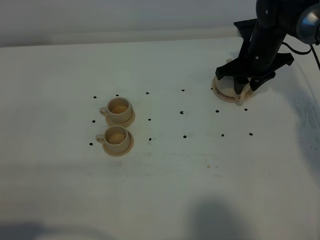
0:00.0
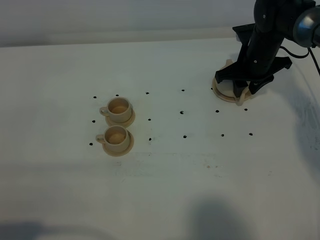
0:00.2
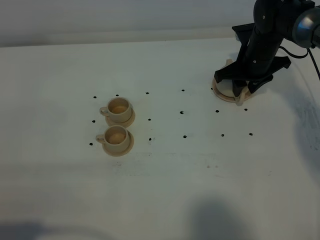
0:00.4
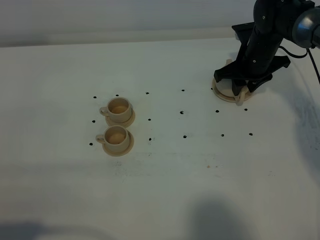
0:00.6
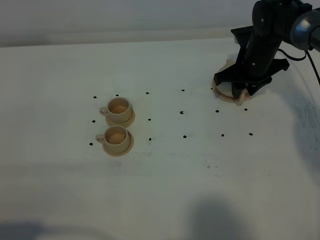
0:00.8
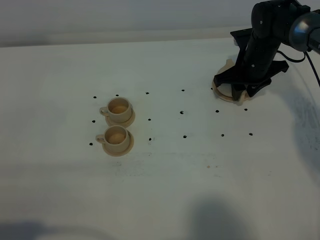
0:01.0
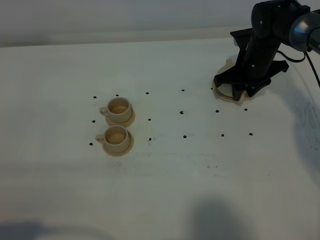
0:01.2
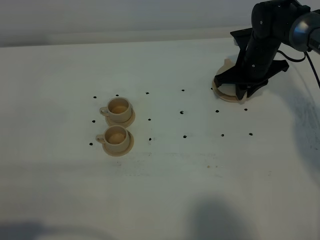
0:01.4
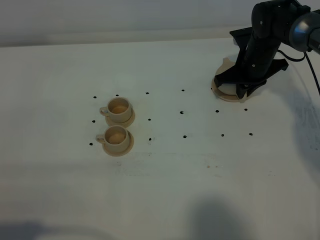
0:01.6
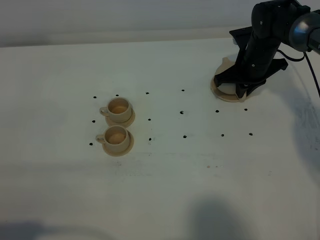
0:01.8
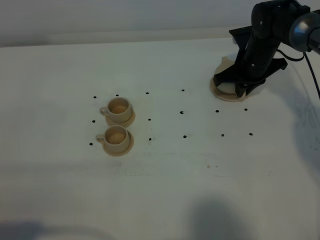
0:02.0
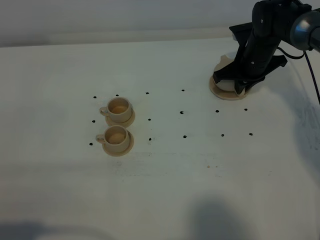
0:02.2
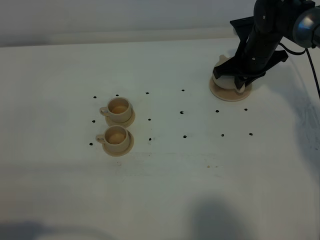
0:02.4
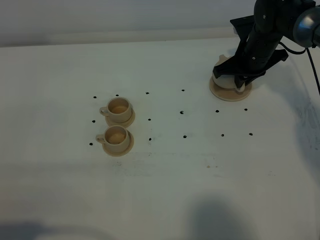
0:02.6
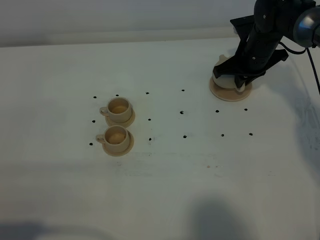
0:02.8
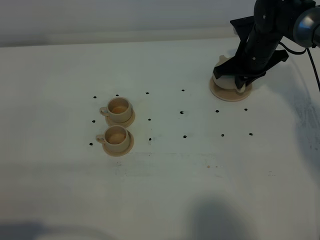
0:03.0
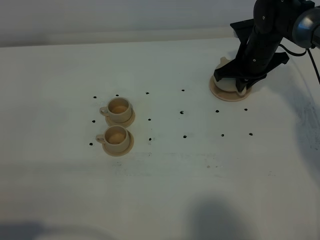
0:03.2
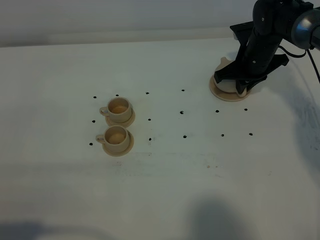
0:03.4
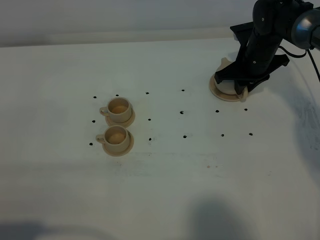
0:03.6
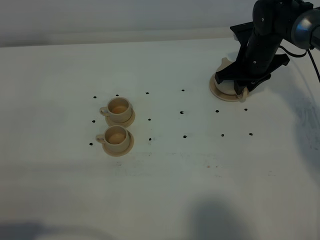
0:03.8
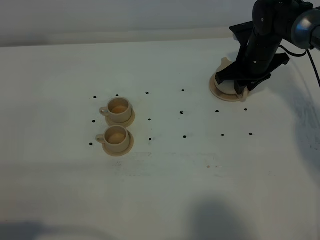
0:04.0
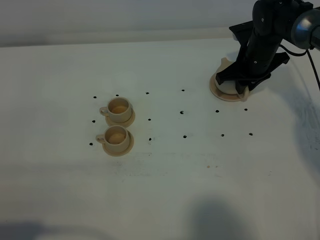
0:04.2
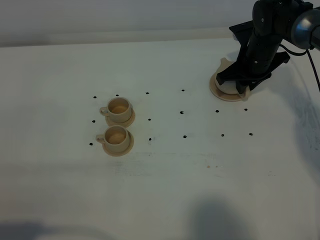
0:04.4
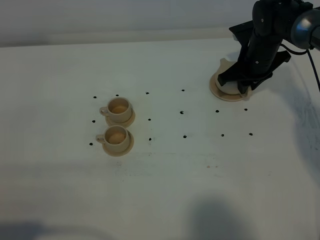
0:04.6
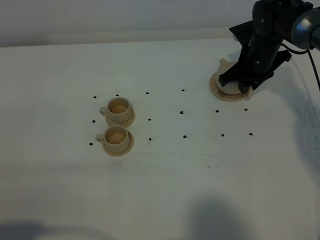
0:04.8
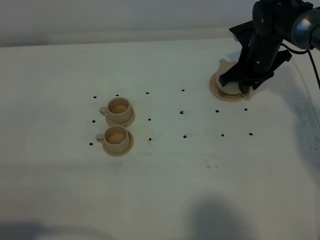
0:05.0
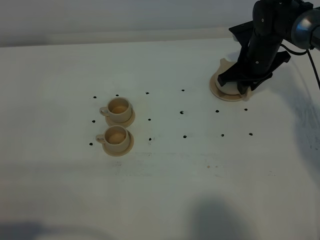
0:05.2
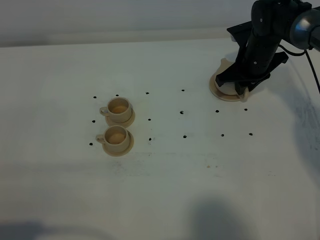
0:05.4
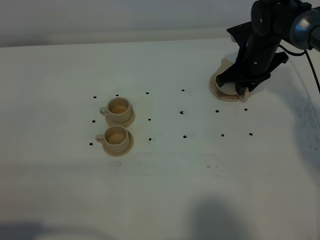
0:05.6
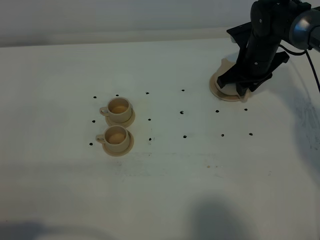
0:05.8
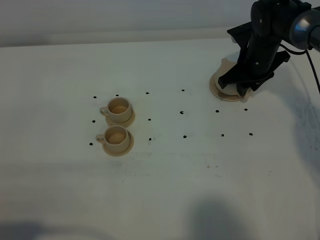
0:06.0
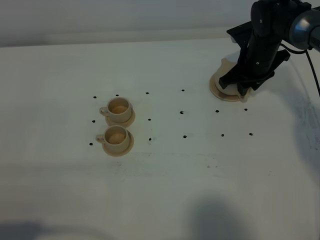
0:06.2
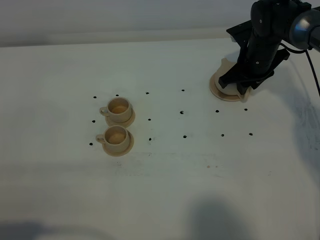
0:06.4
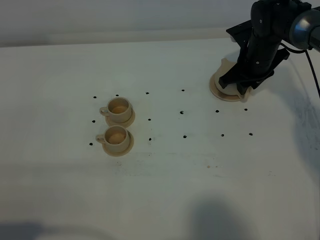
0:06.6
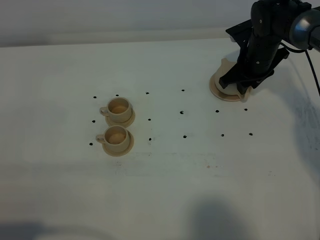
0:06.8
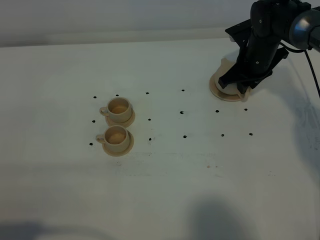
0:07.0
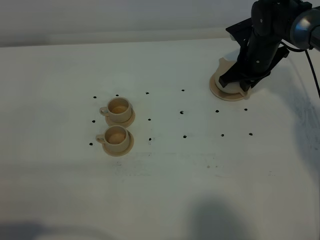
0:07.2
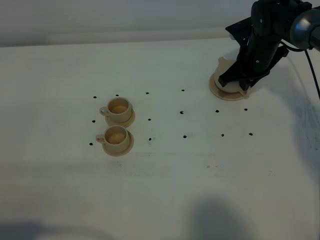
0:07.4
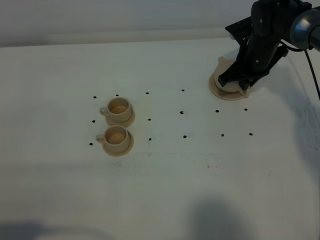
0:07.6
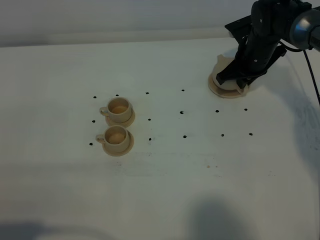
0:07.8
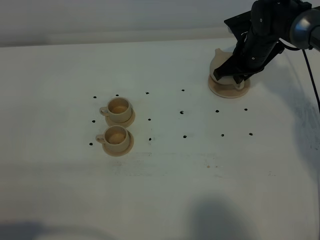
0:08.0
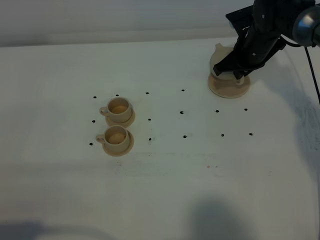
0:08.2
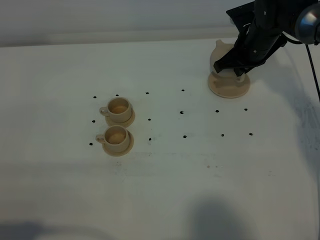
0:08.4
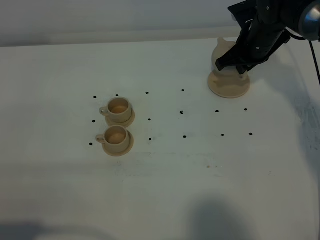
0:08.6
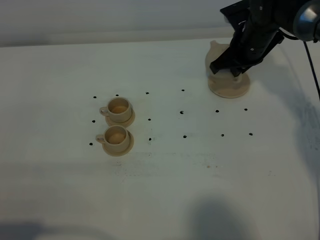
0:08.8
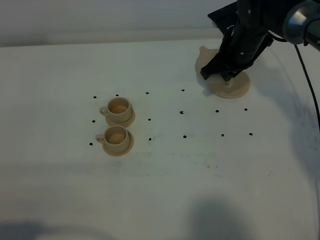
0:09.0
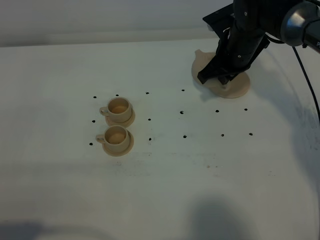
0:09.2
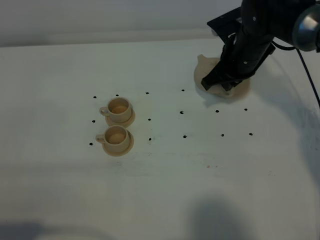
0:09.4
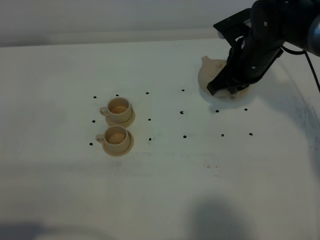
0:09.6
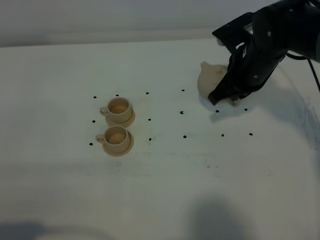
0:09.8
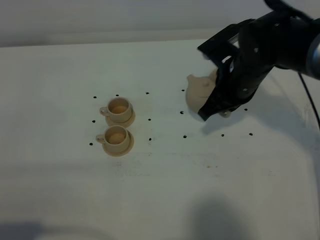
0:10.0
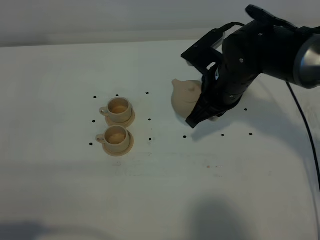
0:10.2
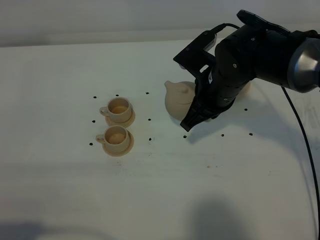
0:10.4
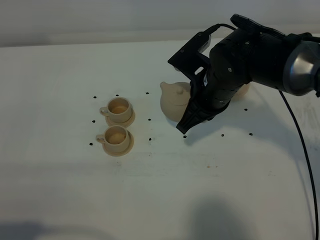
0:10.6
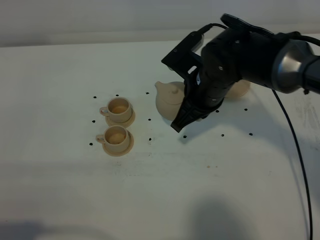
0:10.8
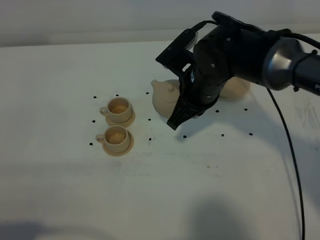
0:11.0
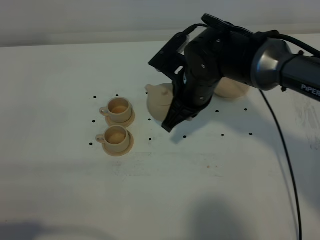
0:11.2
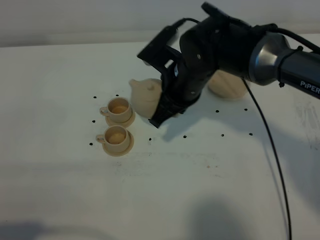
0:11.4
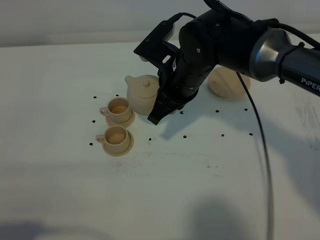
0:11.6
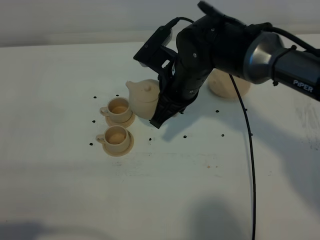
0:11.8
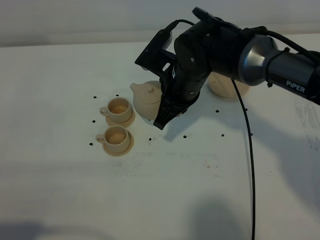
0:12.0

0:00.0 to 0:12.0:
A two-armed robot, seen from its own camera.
Task of the whole recording: grasp the brown teapot and pour the tea into the two brown teacups one by one, put the brown teapot back in its original place.
Step, 0:00.0 to 0:08.2: Pick up the teapot with the right gripper.
0:00.0 to 0:01.6: The right gripper closes its fingers.
0:01.6 to 0:03.0: The grippers move only a little.
0:03.0 to 0:04.4: Both grippers stay put.
0:04.4 to 0:06.0: Both grippers stay put.
0:06.0 to 0:07.6: The right gripper closes its fingers.
0:07.6 to 0:09.0: The right gripper moves about 5 cm.
0:09.0 to 0:10.4: The right gripper moves backward and to the left, approximately 15 cm.
0:10.4 to 0:12.0: The right gripper goes about 5 cm to the left.

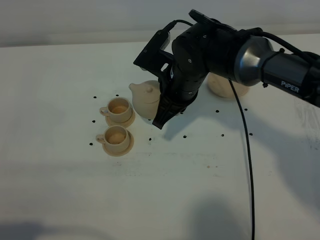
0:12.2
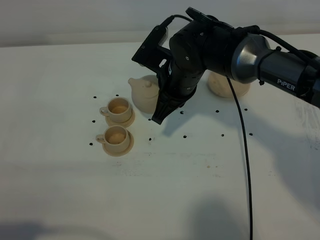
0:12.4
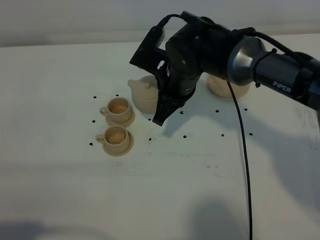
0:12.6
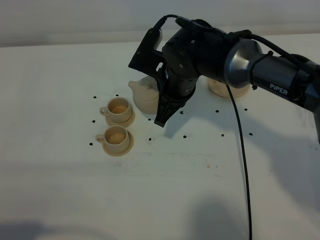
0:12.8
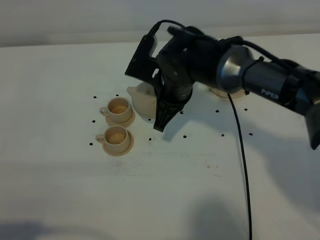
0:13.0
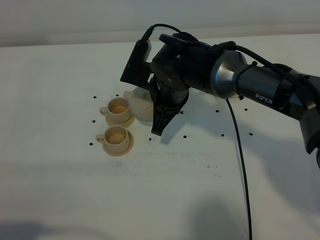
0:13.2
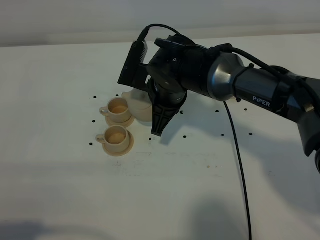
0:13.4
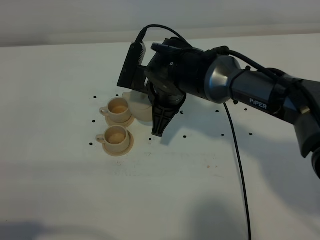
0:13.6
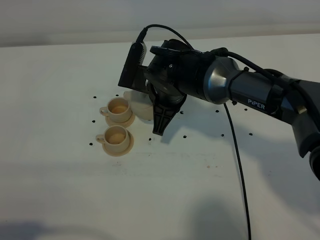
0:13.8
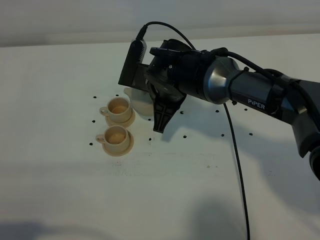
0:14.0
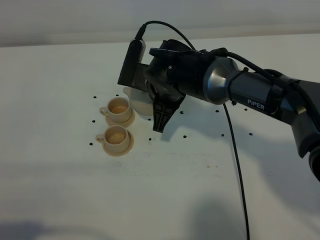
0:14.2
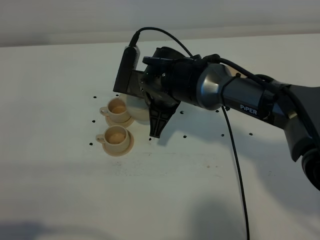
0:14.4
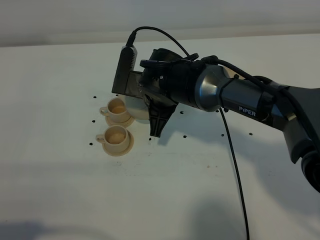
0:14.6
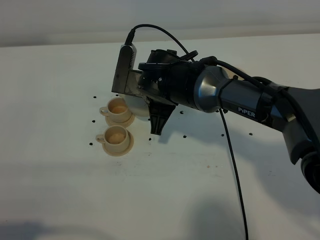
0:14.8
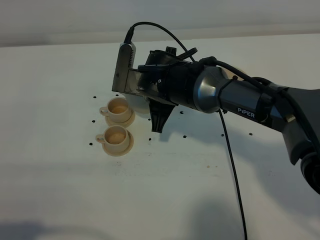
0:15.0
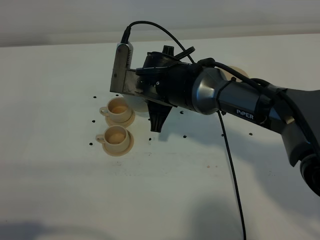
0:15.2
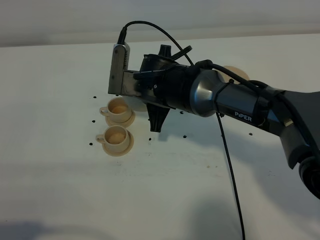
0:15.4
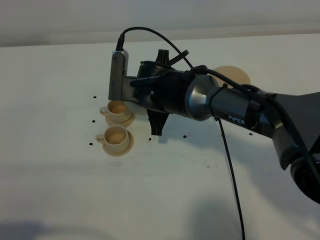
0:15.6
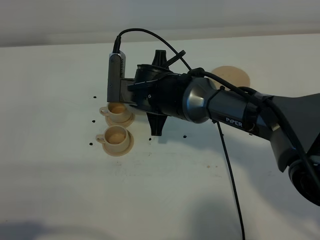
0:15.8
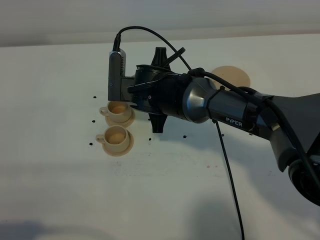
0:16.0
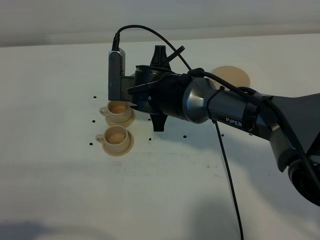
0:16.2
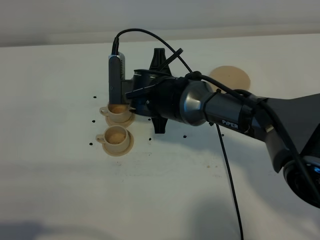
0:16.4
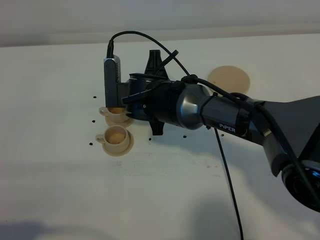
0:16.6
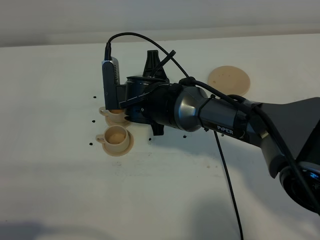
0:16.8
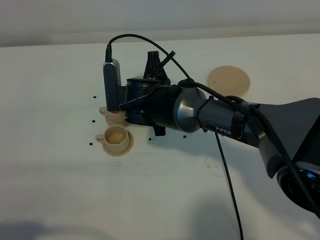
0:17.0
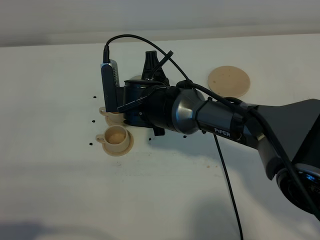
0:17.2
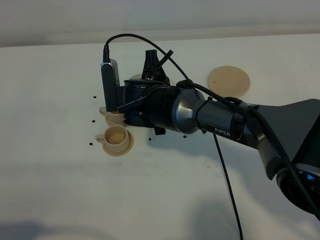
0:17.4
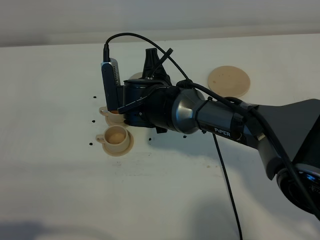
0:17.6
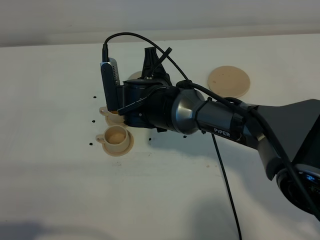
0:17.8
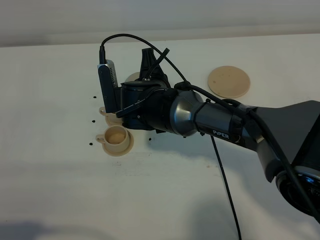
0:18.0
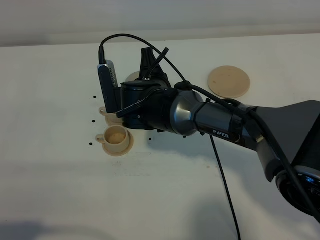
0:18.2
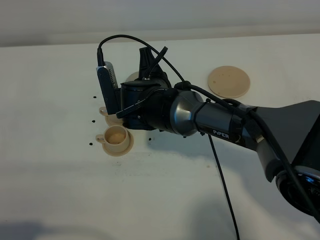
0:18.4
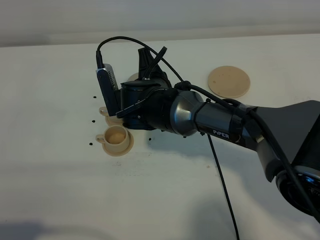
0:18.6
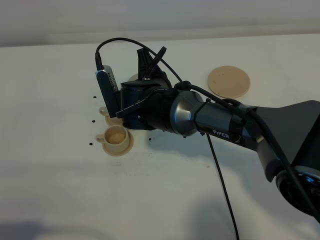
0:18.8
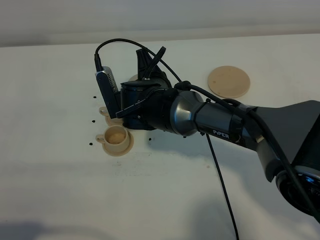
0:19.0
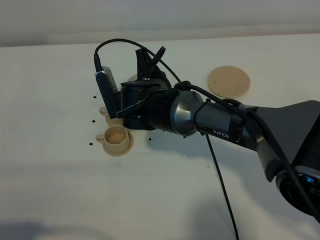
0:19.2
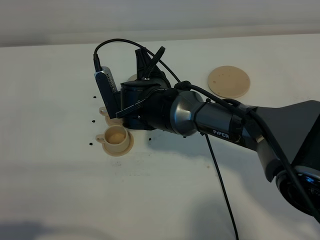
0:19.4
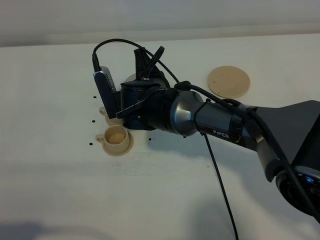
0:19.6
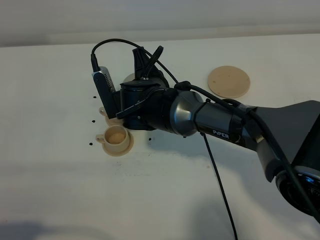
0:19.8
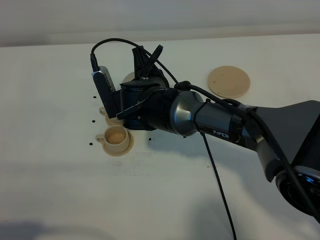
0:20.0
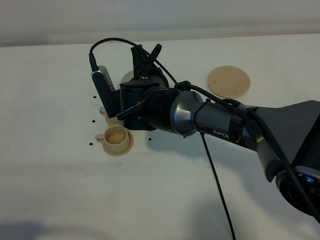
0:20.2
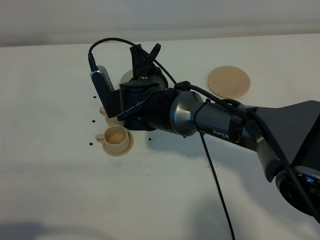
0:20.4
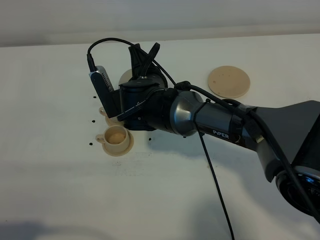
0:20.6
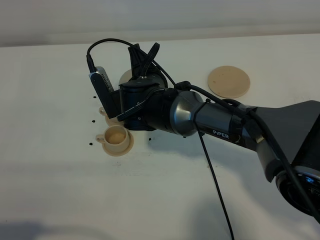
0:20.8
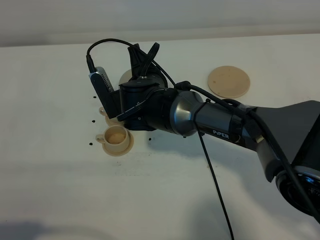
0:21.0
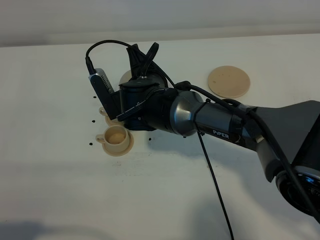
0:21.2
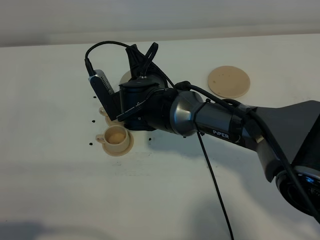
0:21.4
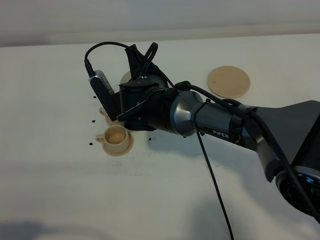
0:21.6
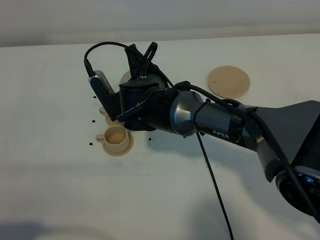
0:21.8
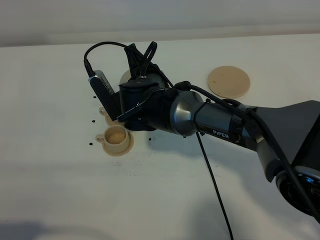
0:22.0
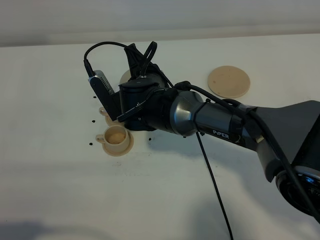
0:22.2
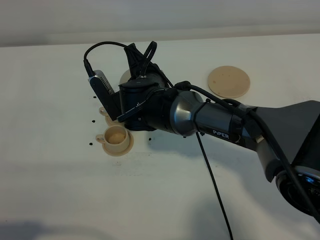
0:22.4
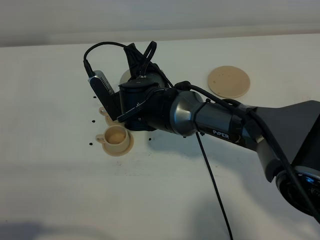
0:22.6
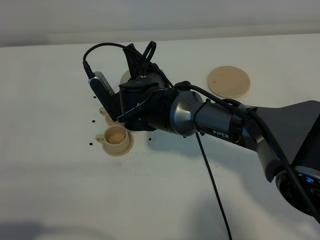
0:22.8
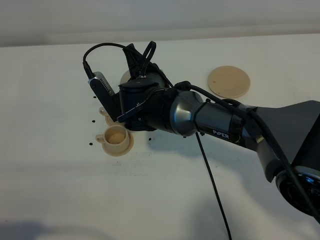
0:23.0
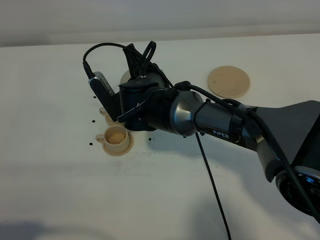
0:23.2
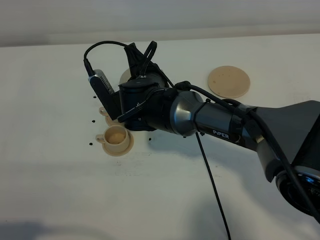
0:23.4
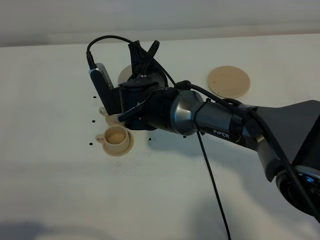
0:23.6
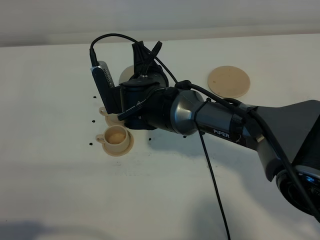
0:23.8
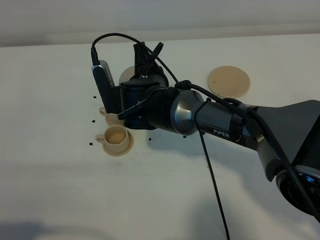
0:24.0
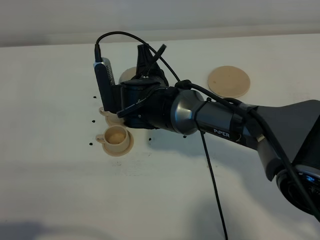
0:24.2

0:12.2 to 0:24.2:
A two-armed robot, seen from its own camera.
Task of the whole recording: grasp the brown teapot and pour the tea into the two brown teacups one by one, put the brown teapot back in its original place.
Step, 0:12.2 to 0:24.2: Pour tea into the teacup with the right gripper.
0:13.8 to 0:15.2: There are only small adjustments of the grippers.
0:15.2 to 0:16.6: There are only small adjustments of the grippers.
0:16.6 to 0:19.8: The grippers stay close to where they were, moving slightly.
0:19.8 to 0:21.2: There are only small adjustments of the grippers.
0:21.2 to 0:22.6: Both grippers stay about where they are.
